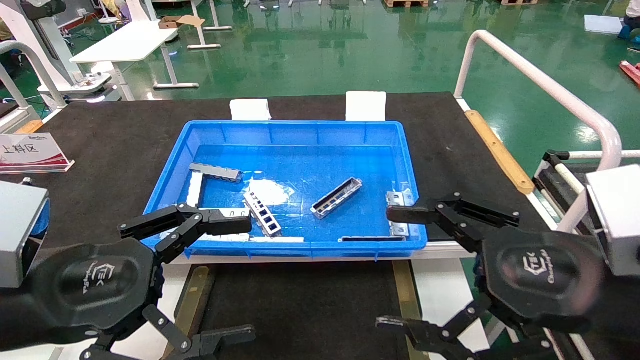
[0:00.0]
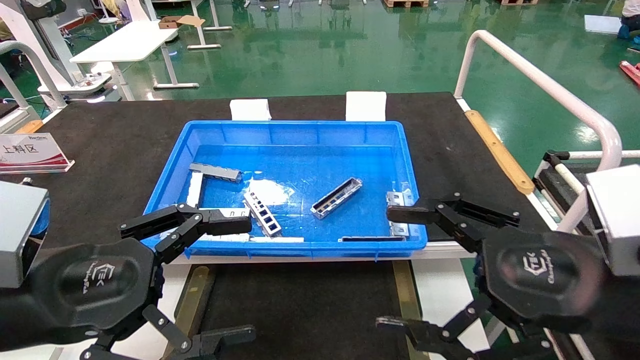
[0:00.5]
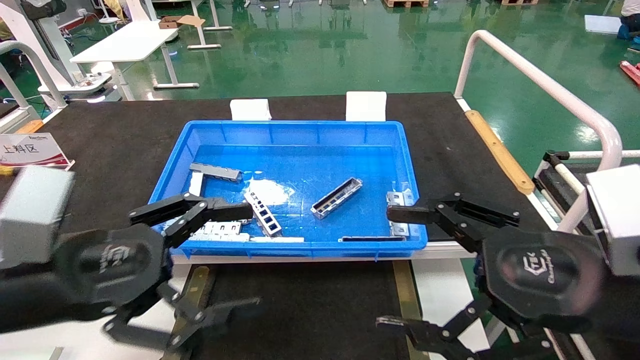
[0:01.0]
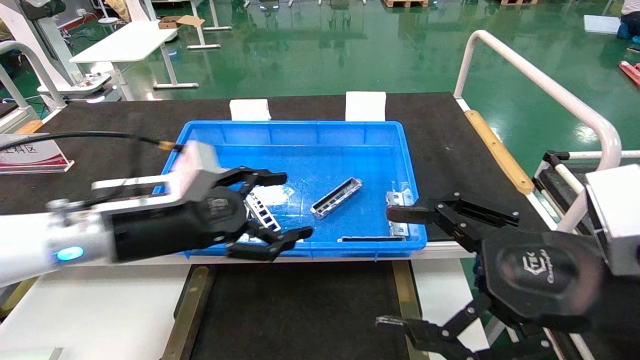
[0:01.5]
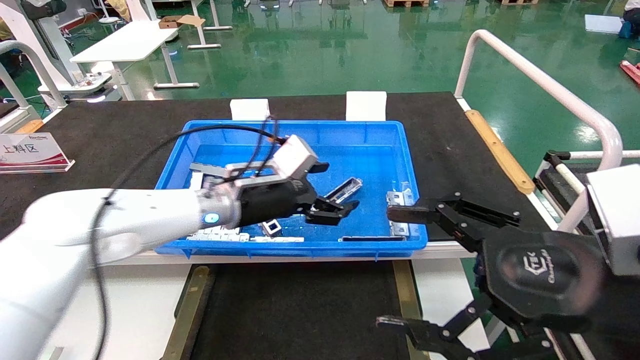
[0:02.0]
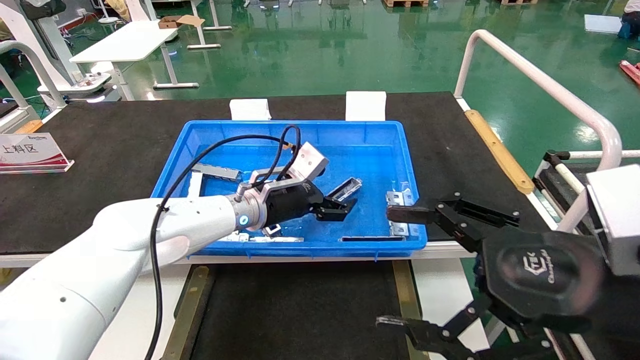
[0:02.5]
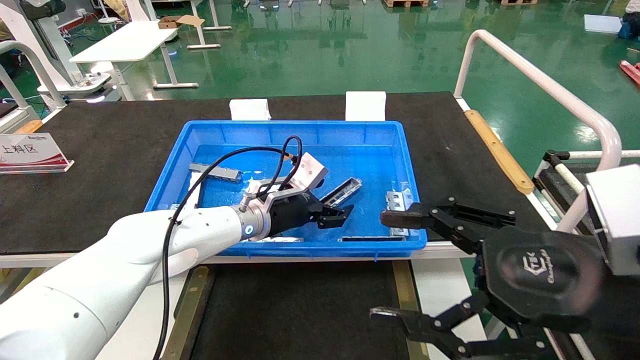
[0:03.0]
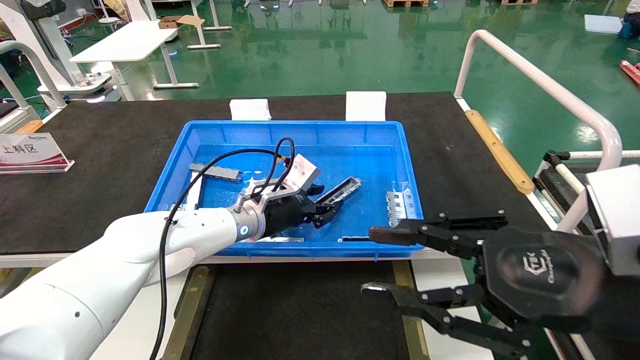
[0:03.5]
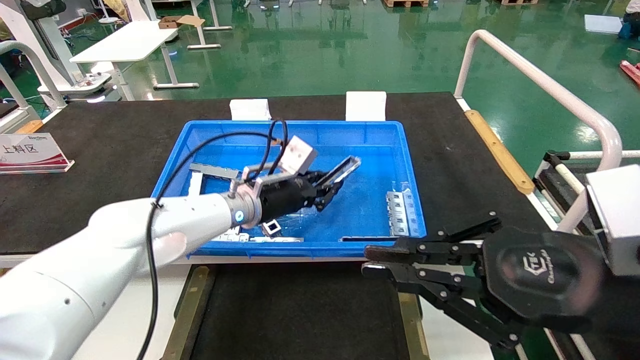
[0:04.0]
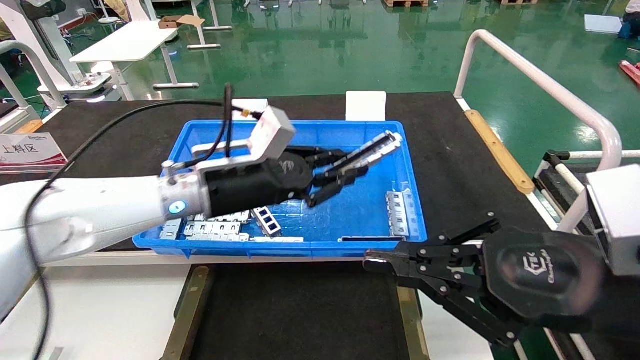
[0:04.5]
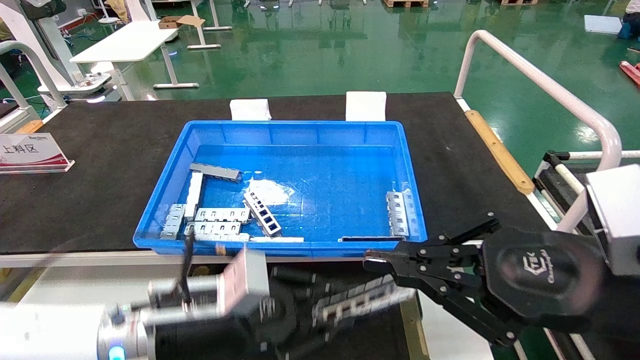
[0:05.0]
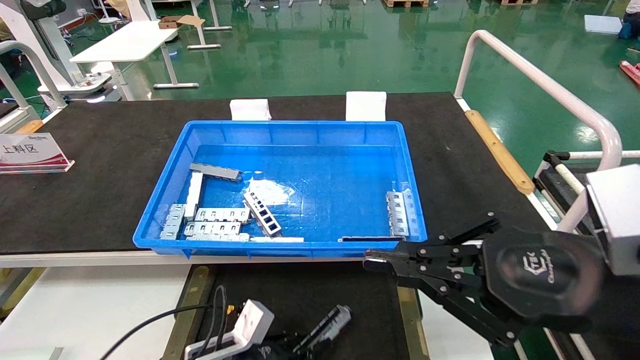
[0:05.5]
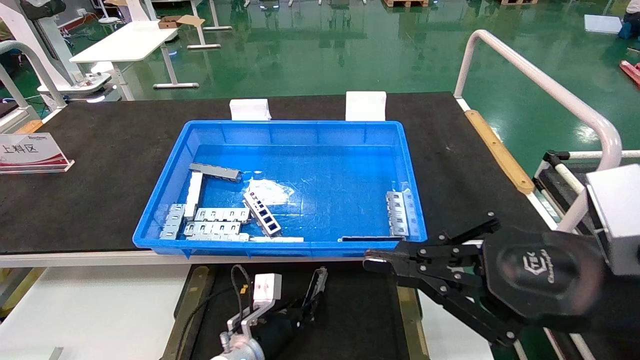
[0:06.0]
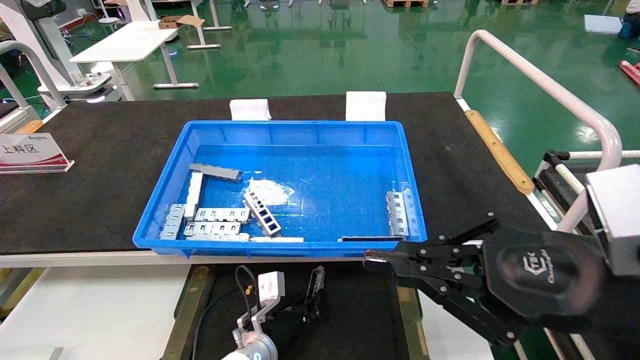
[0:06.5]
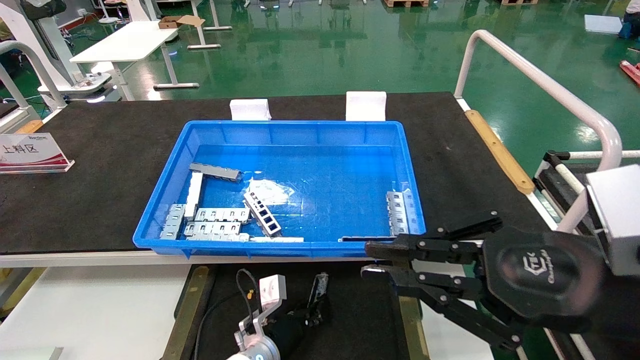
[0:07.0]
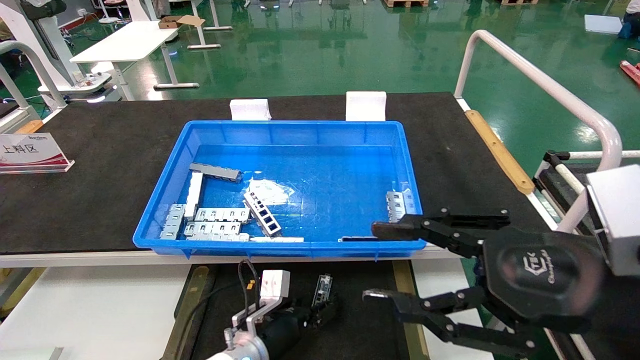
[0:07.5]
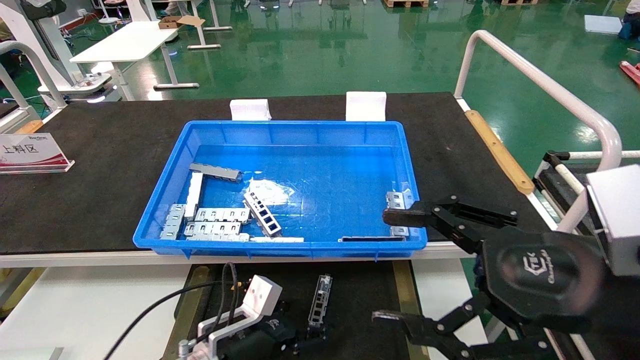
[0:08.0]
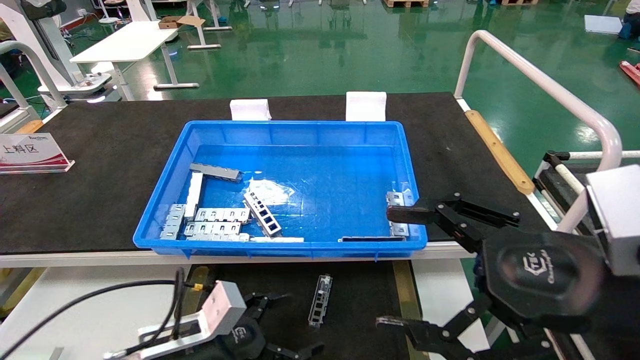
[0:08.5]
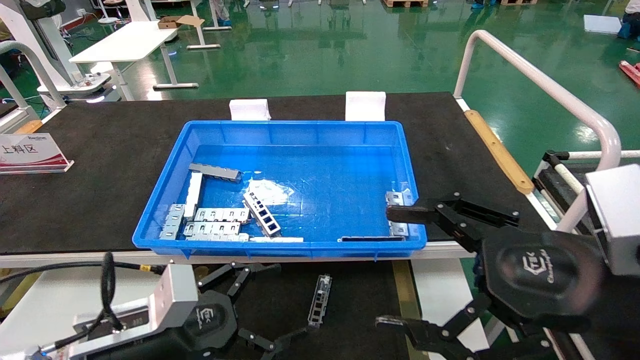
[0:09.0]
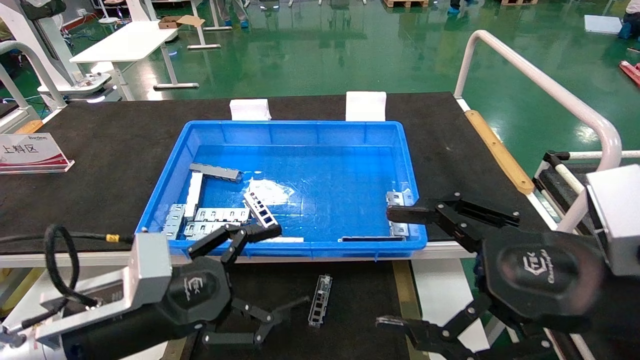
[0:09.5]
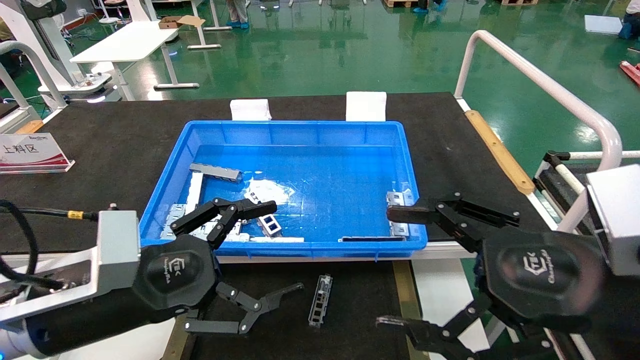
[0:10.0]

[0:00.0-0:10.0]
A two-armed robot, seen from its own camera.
Task of the whole recording: Grasp the part with one hand and place it on the black container.
Step, 0:01.5 to 0:04.0: Pick up the front USB bracket from the feeding area.
Step, 0:04.5 to 0:07.0: Place the front USB bracket into the box.
0:00.0 to 0:02.0: The left gripper travels forward and to the right by approximately 30 cm.
0:02.0 to 0:04.0: The right gripper closes up; the left gripper closes.
0:04.0 to 0:06.0: The left gripper goes some 25 cm downward.
0:06.0 to 0:08.0: The right gripper opens its fingers, while the left gripper moves backward, roughly 5 cm, and opens its fingers.
0:08.0 to 0:10.0: The left gripper moves upward, backward and to the left, roughly 20 cm.
